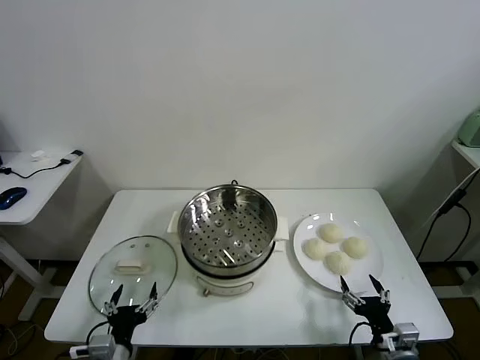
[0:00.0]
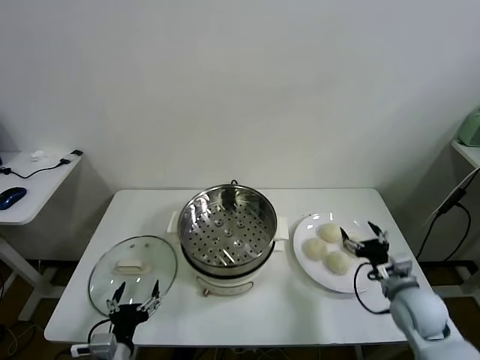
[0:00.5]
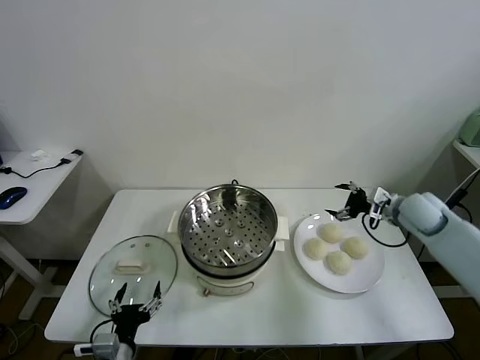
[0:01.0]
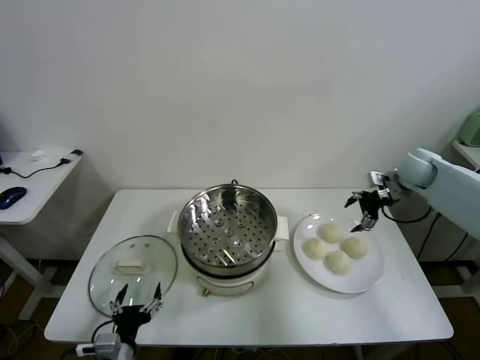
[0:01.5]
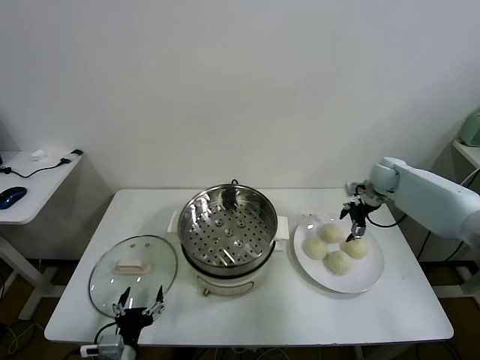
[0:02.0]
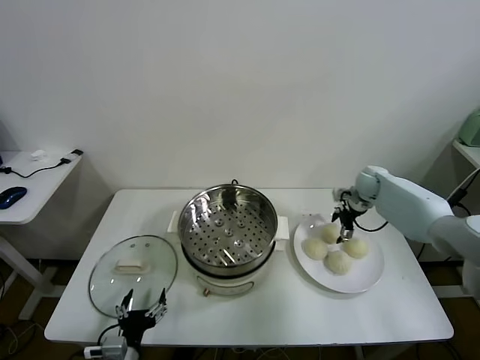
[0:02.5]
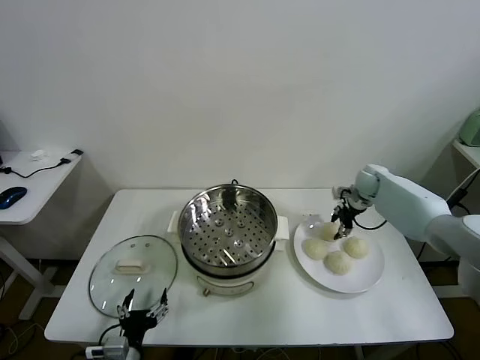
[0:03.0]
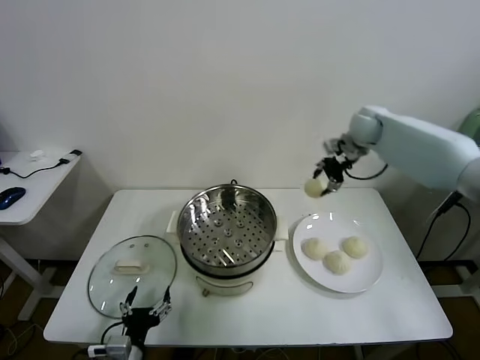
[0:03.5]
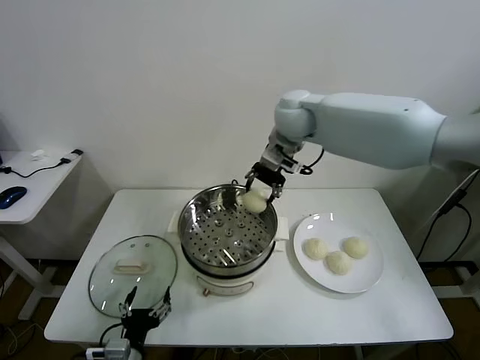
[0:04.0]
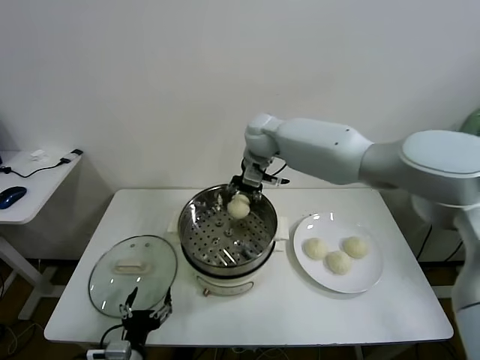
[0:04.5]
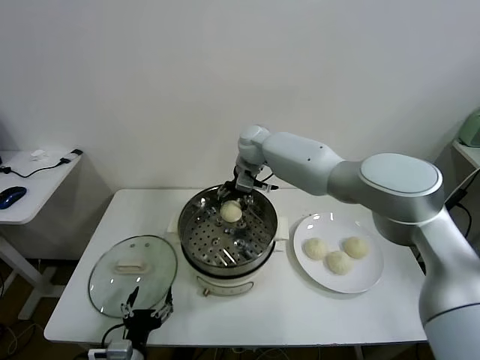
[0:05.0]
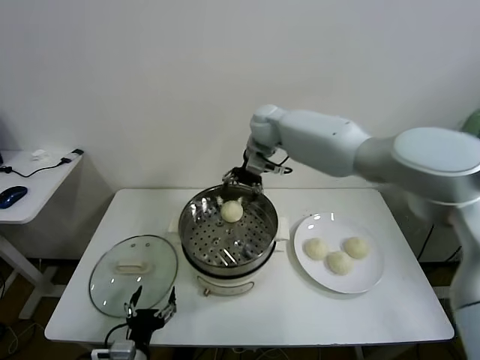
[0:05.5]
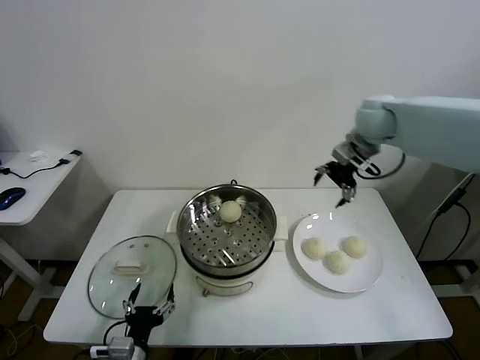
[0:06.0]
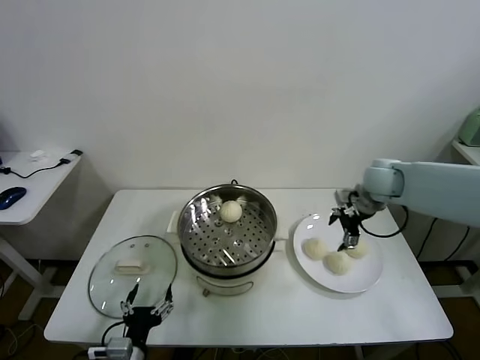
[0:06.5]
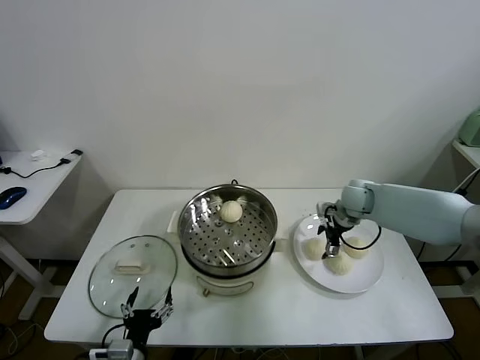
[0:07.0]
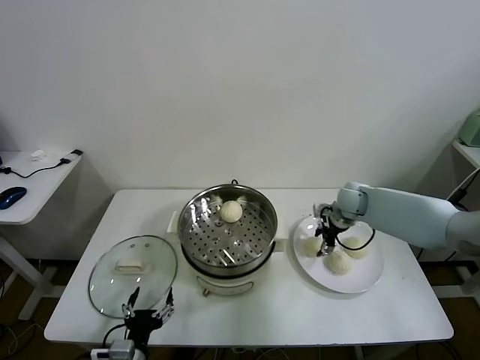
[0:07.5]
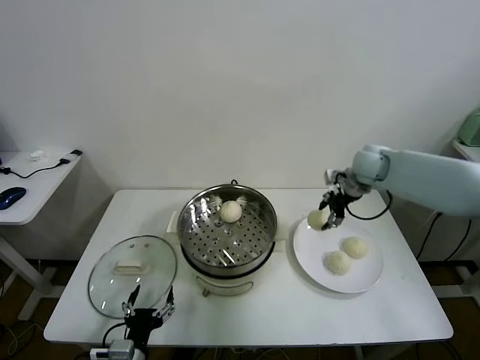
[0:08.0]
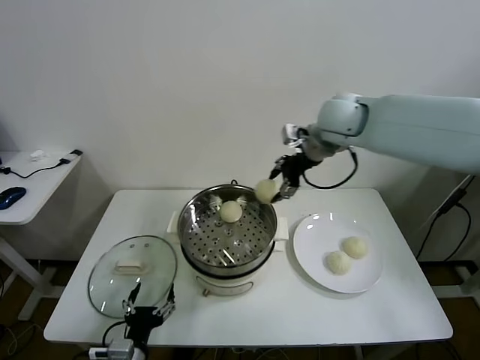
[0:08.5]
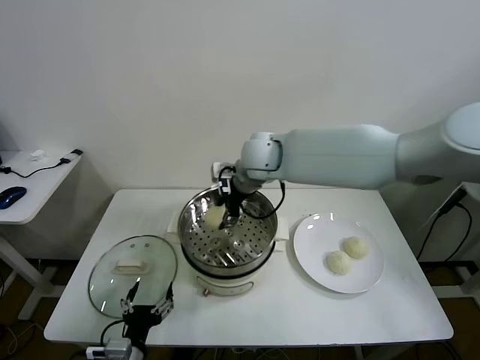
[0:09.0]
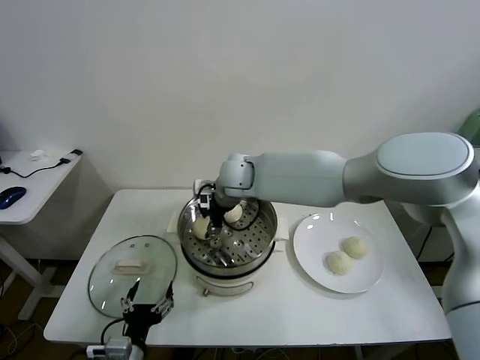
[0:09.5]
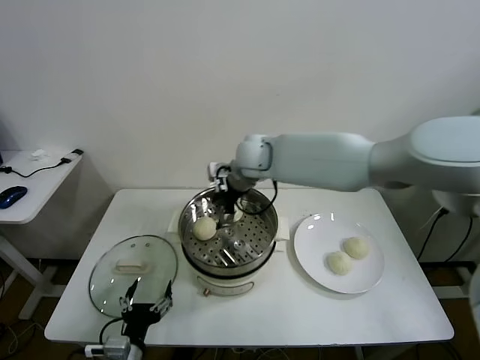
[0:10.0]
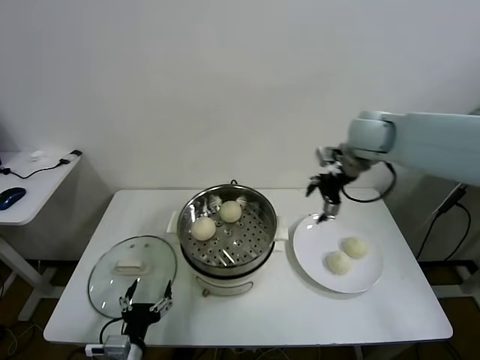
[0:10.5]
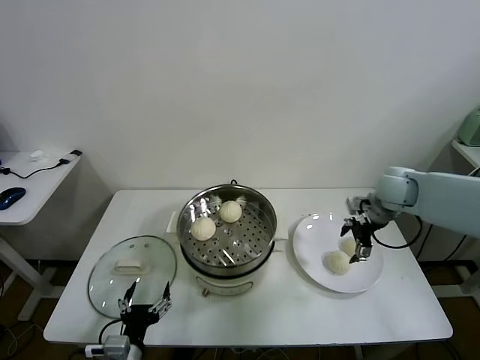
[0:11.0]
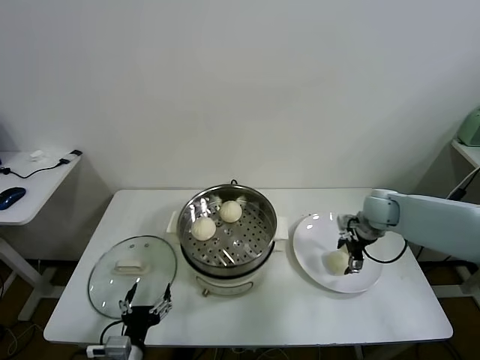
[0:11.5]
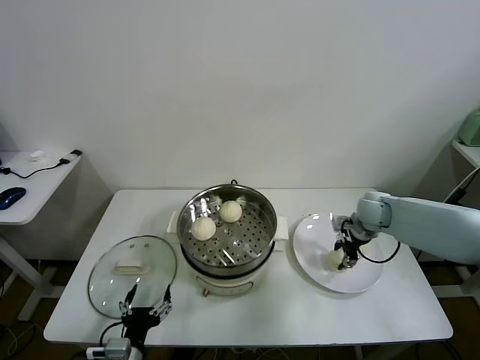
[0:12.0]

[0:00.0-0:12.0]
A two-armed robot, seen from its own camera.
Task of the whole recording: take steamed baozi put them in steamer.
Step, 0:00.0 to 0:02.5: Grasp the baozi in the plate with right gripper.
Step, 0:03.0 to 0:05.0: Place the baozi on the steamer with right gripper.
Step, 0:05.5 to 0:07.0: Grasp the baozi in the plate with right gripper.
Step, 0:07.5 to 0:09.5: Place the baozi on the steamer with right gripper.
Step, 0:10.0 to 0:11.5: Grasp the baozi in the plate with right gripper.
0:02.0 to 0:04.0: The right gripper shifts approximately 35 cm to the left and upward, and closes its fingers.
0:04.0 to 0:06.0: The right gripper travels to the right by roughly 20 cm, and opens.
0:06.0 to 0:08.0: The right gripper reaches approximately 20 cm downward, then returns, and closes.
0:08.0 to 0:10.0: The right gripper shifts about 25 cm to the left, and opens.
0:10.0 to 0:12.0: The right gripper moves to the right and downward, roughly 35 cm, and closes up.

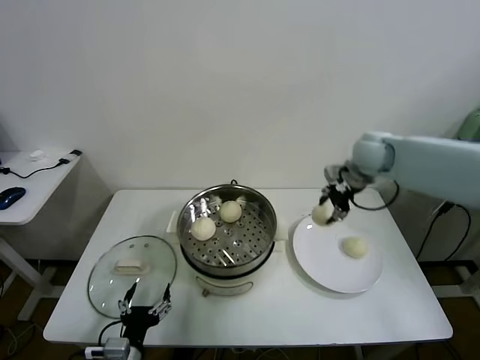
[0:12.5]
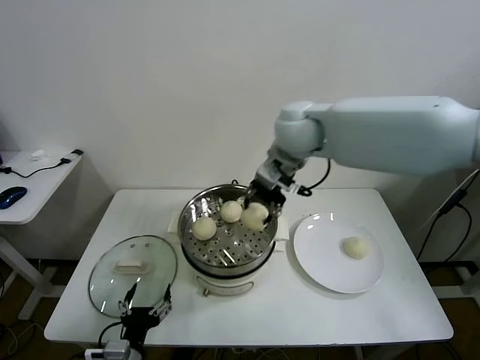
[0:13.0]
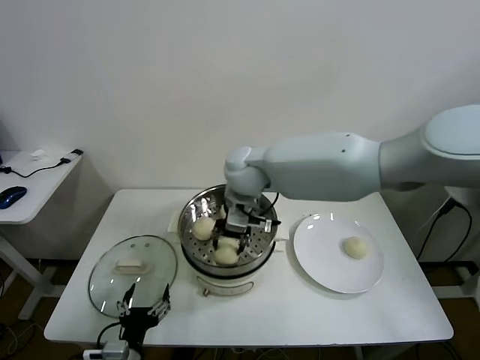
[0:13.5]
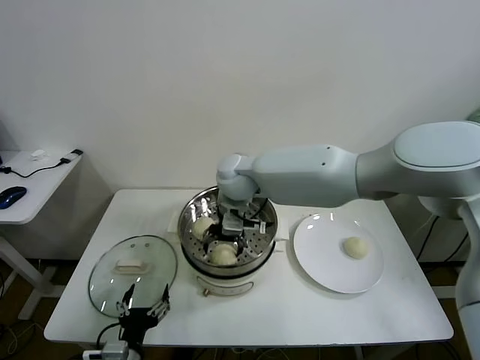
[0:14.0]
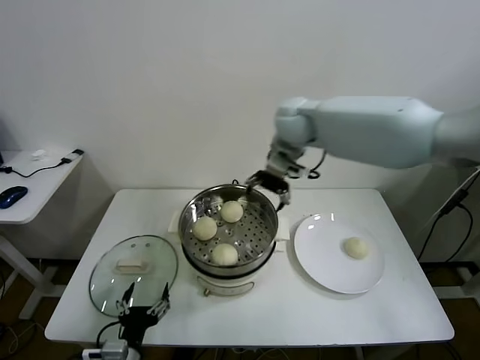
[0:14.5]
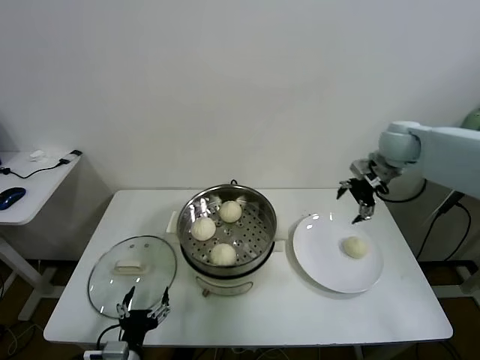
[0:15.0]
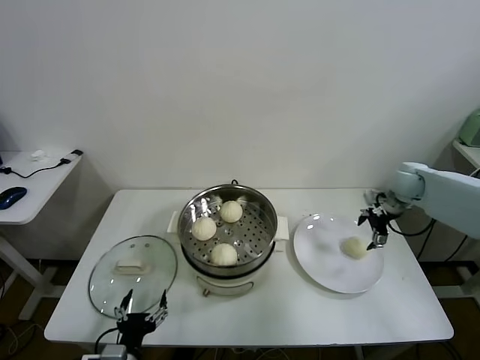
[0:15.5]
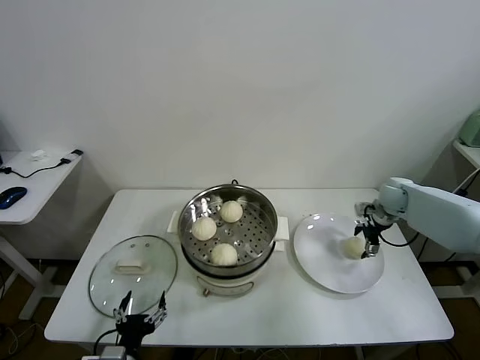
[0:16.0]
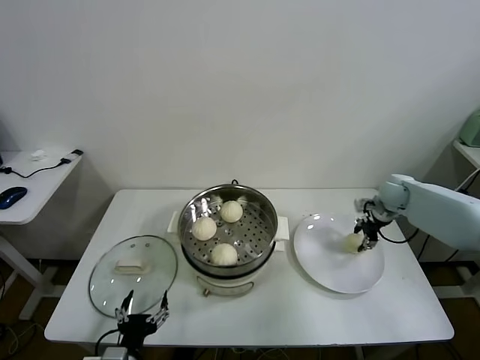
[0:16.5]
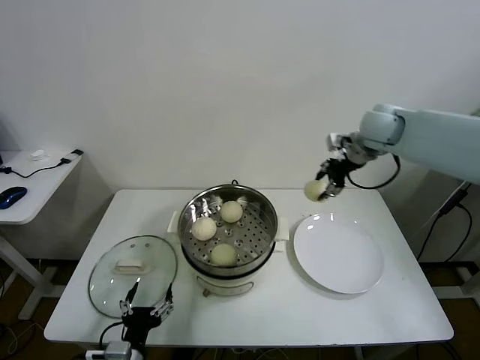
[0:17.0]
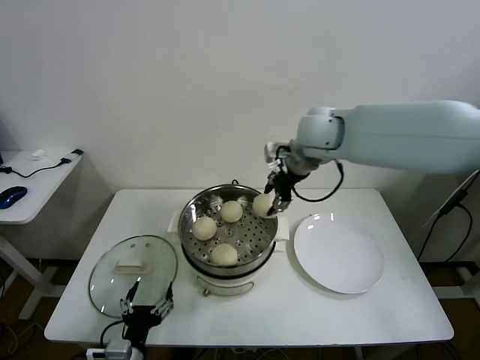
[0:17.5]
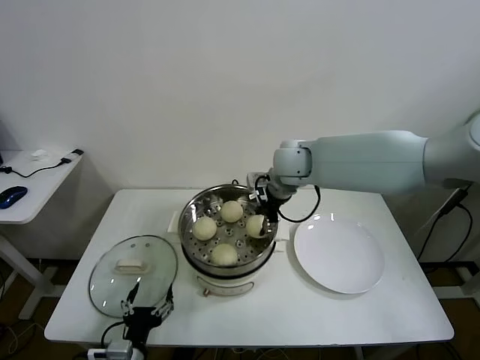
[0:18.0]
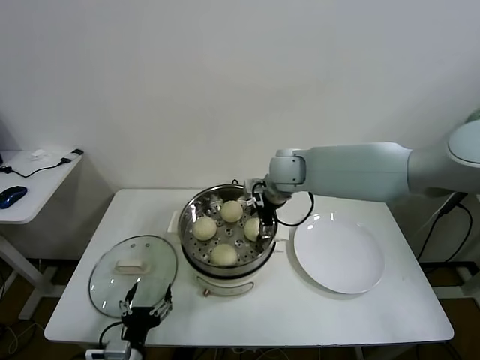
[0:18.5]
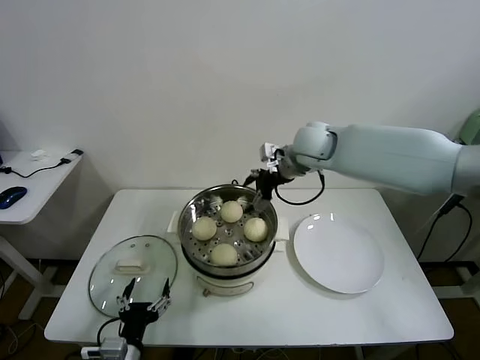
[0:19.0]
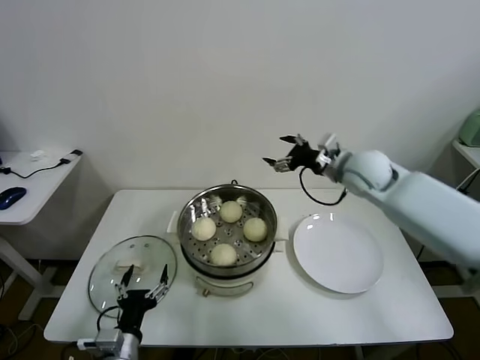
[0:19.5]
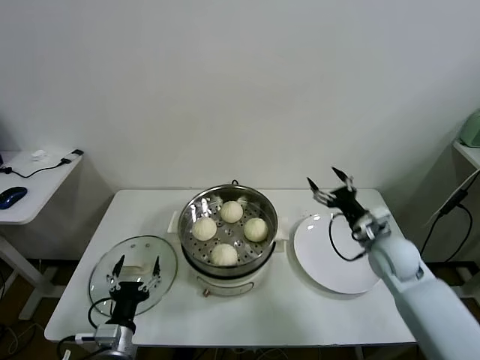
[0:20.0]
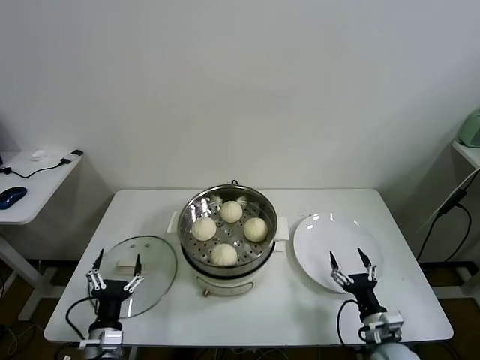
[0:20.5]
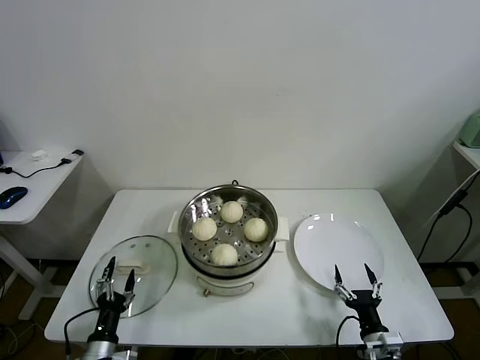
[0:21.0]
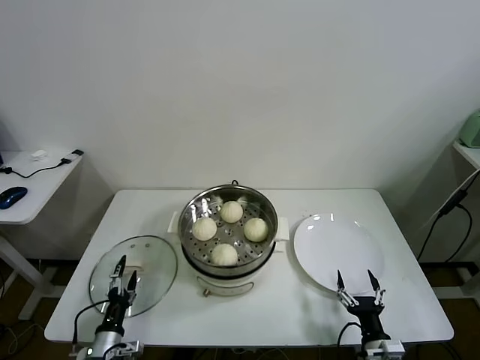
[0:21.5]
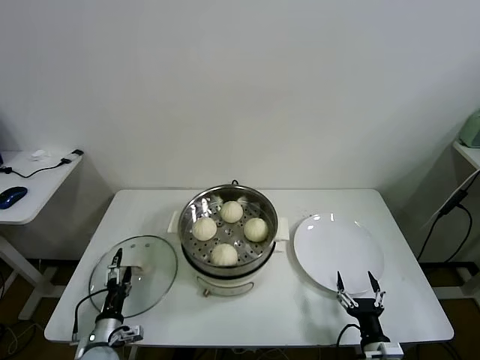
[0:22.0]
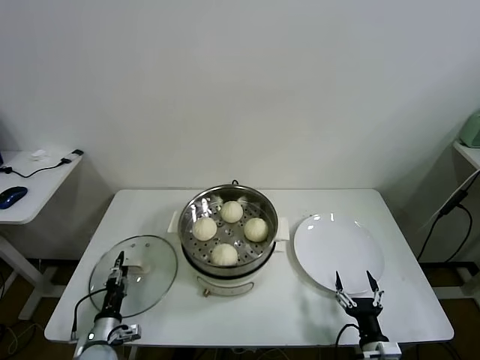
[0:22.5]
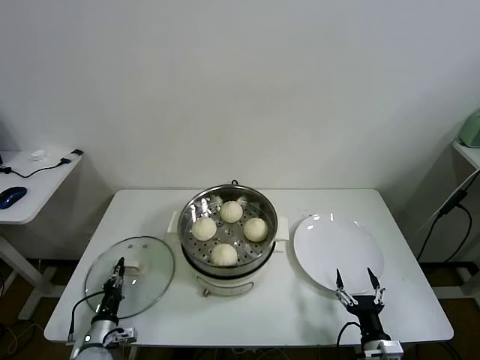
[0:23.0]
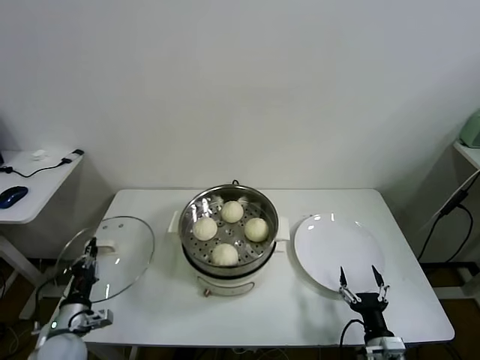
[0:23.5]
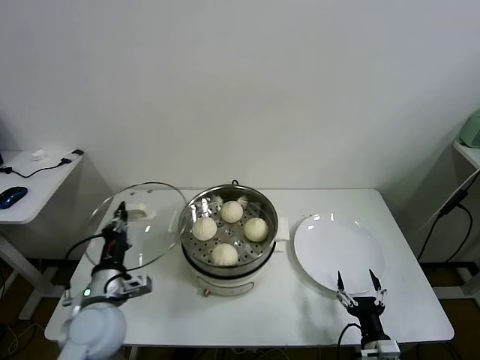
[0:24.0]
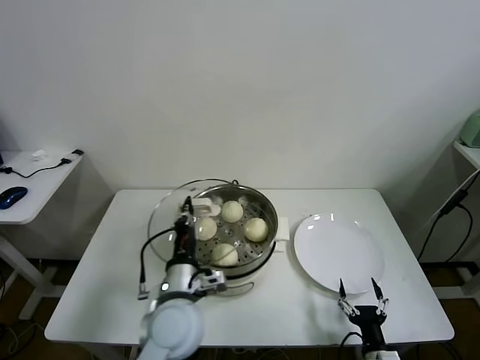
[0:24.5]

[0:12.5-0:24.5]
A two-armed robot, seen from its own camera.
Task of the whole recording: take steamed baozi put them in steamer.
Step, 0:12.5 to 0:13.5: Place the baozi on the steamer with right gripper.
Step, 0:14.0 to 0:16.0: Grasp the baozi in the plate with right gripper.
Step, 0:16.5 to 0:18.5: Place the baozi on the steamer with right gripper.
Step, 0:19.0 to 0:22.5: Grasp the pot lid with left gripper.
0:12.5 to 0:14.5: The right gripper shifts roughly 15 cm to the left, and opens up.
0:14.5 to 0:16.5: The right gripper travels to the right and downward by some 35 cm, and closes.
0:16.5 to 0:18.5: The right gripper shifts roughly 30 cm to the left, and opens its fingers.
0:18.5 to 0:20.5: The right gripper travels backward, downward and to the right by about 50 cm; the left gripper ends up some 5 cm from where it was.
0:20.5 to 0:22.5: The left gripper moves downward, to the left and forward, roughly 15 cm, and closes up; the right gripper heads backward, covering some 5 cm.
0:22.5 to 0:24.5: The left gripper shifts about 30 cm upward and to the right, and closes.

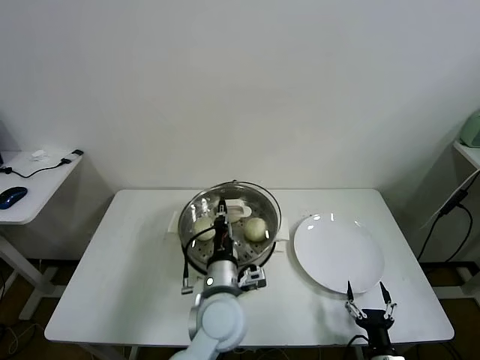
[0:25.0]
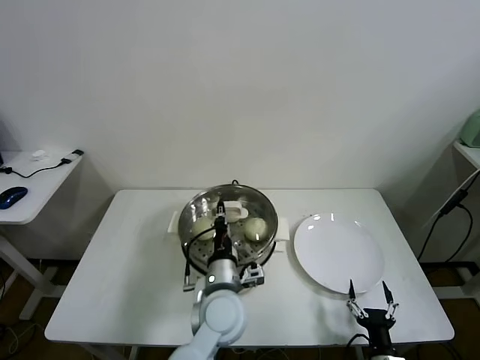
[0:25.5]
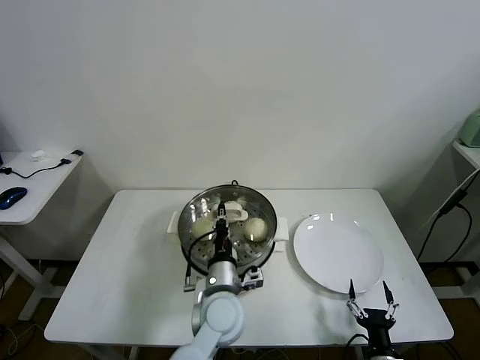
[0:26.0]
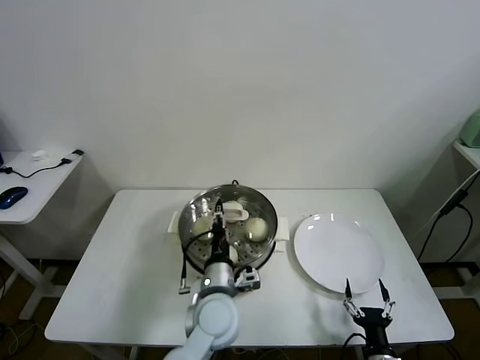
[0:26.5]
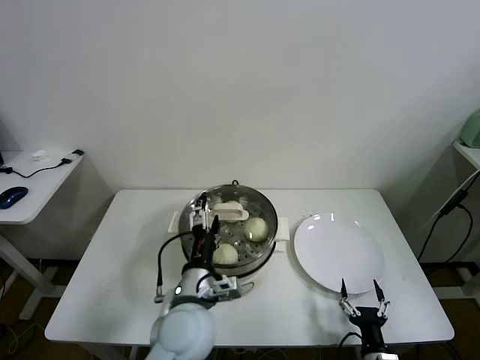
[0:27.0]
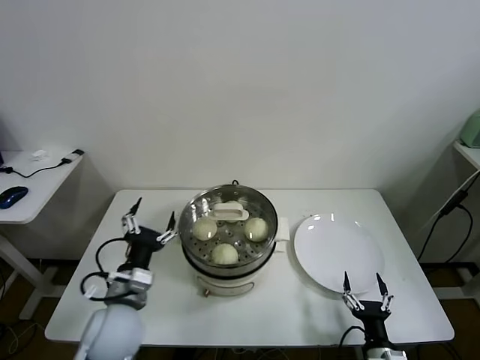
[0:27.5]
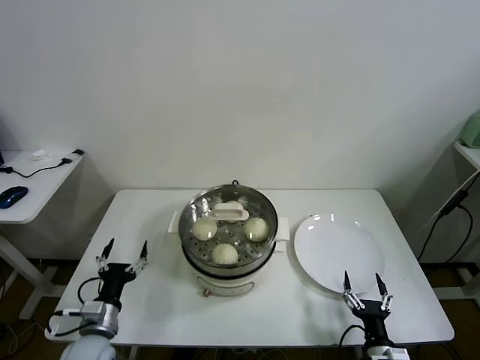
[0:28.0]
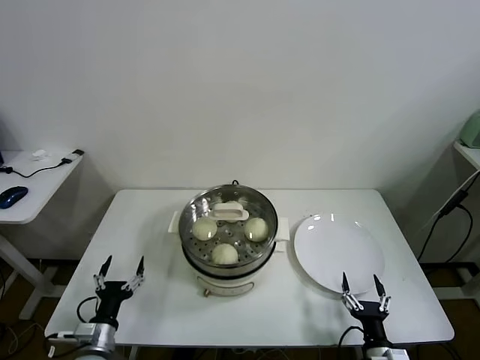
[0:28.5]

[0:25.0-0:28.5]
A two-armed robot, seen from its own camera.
Task of the whole recording: take steamed baozi put them in steamer.
0:25.0 to 0:27.0: The left gripper opens its fingers.
0:27.0 to 0:28.5: The left gripper moves to the left and downward, approximately 30 cm.
